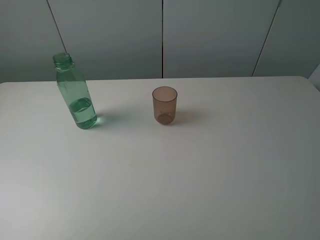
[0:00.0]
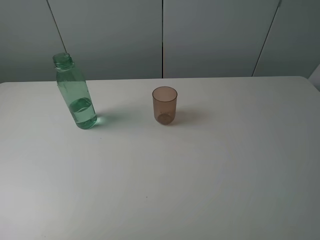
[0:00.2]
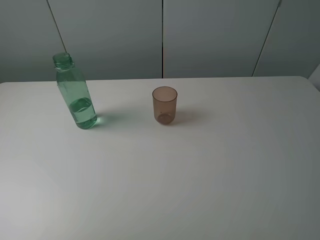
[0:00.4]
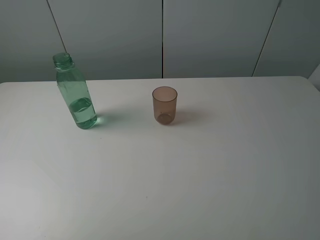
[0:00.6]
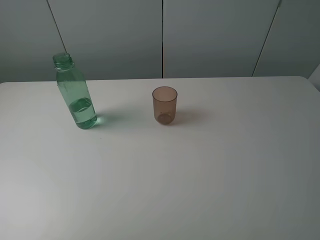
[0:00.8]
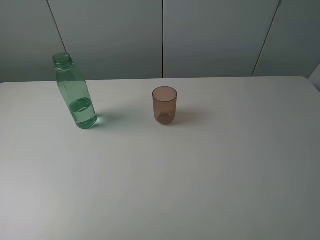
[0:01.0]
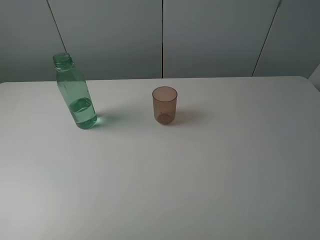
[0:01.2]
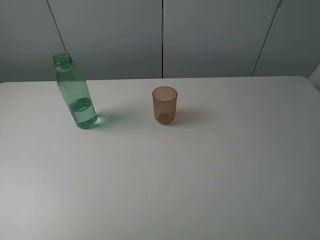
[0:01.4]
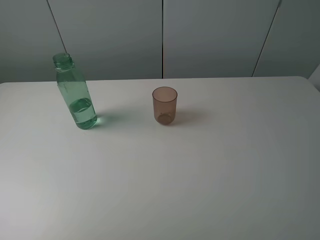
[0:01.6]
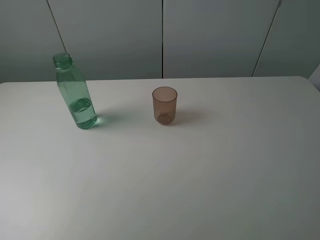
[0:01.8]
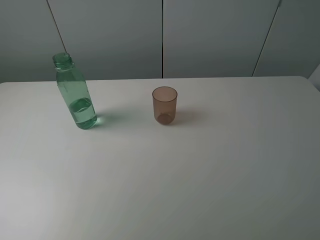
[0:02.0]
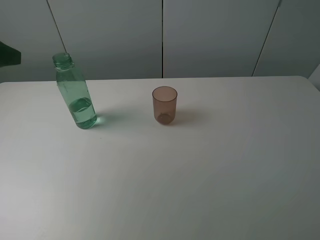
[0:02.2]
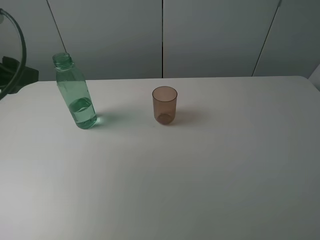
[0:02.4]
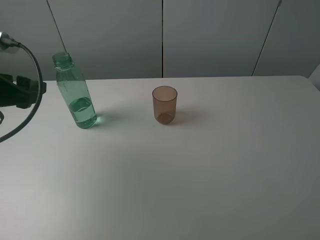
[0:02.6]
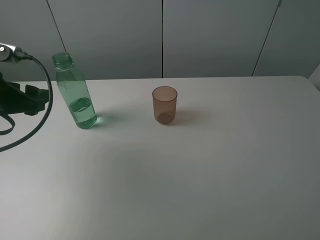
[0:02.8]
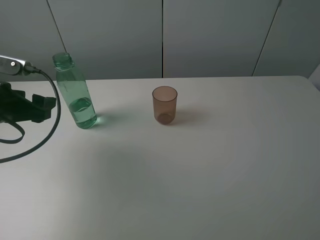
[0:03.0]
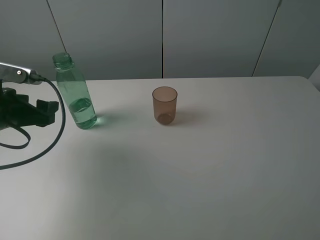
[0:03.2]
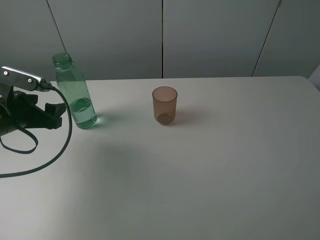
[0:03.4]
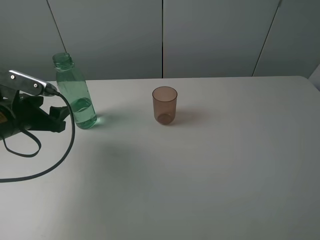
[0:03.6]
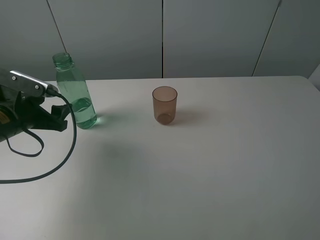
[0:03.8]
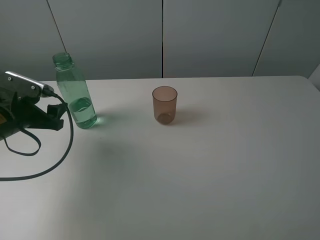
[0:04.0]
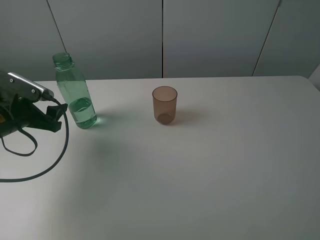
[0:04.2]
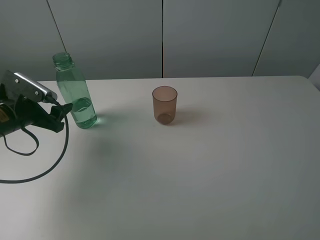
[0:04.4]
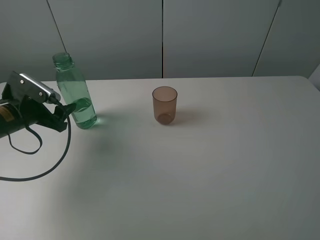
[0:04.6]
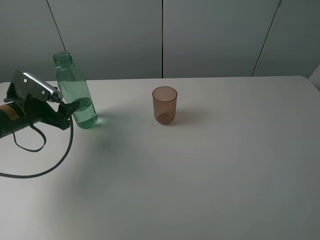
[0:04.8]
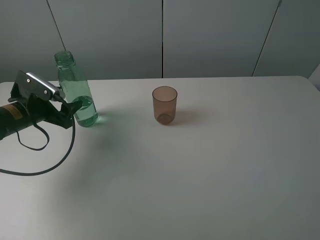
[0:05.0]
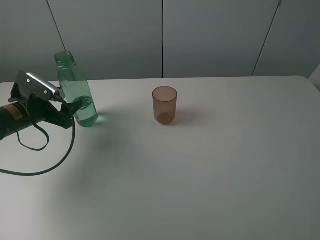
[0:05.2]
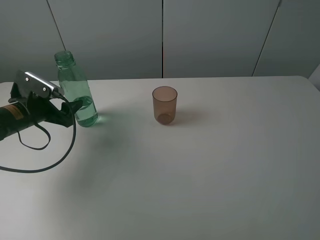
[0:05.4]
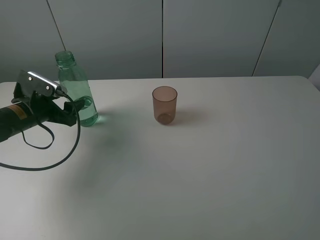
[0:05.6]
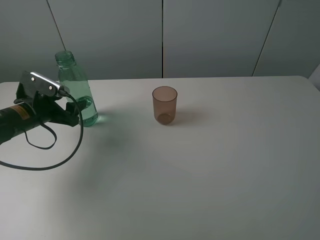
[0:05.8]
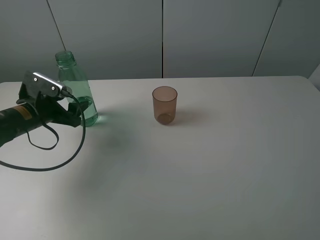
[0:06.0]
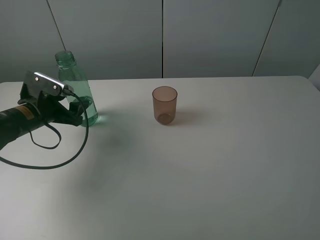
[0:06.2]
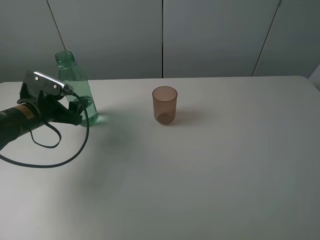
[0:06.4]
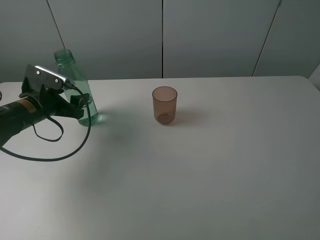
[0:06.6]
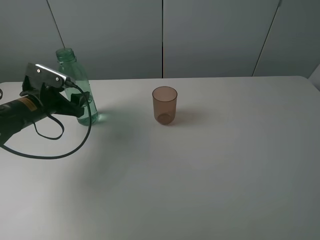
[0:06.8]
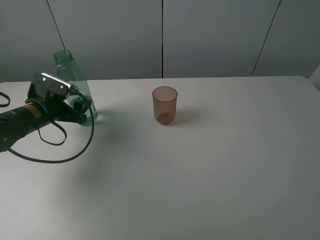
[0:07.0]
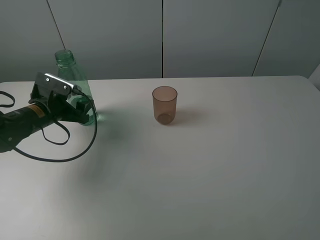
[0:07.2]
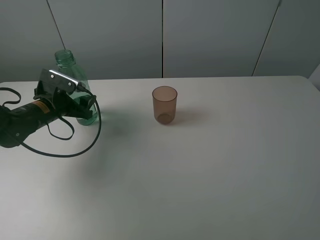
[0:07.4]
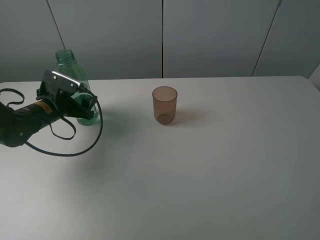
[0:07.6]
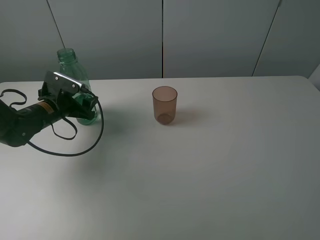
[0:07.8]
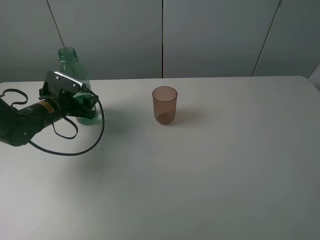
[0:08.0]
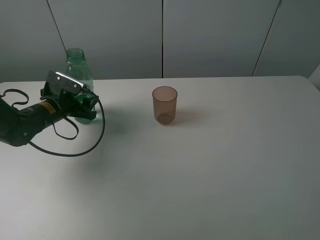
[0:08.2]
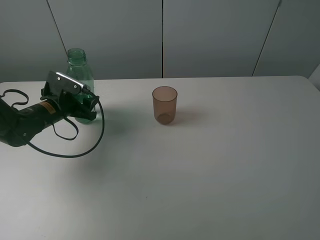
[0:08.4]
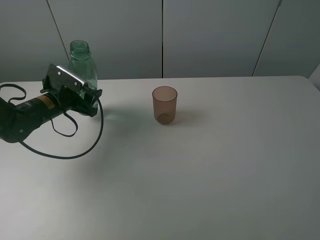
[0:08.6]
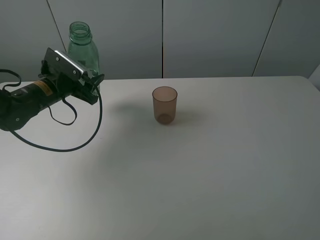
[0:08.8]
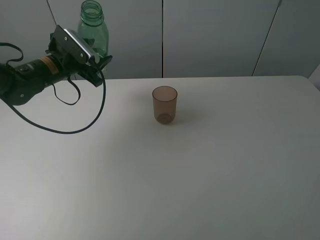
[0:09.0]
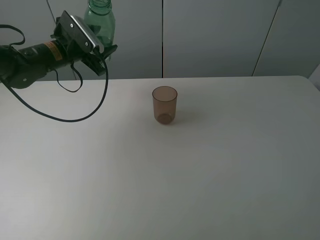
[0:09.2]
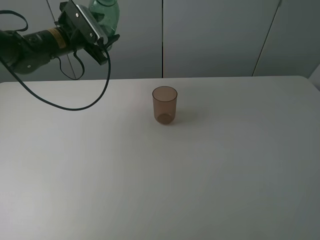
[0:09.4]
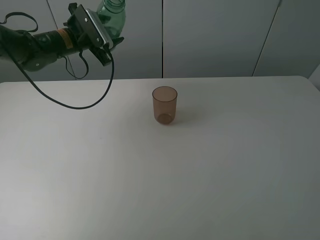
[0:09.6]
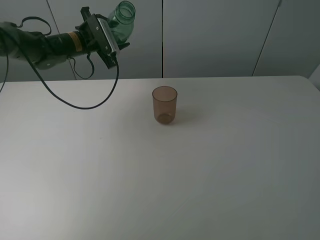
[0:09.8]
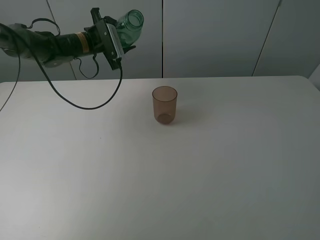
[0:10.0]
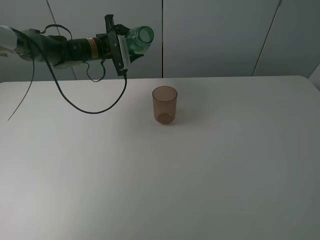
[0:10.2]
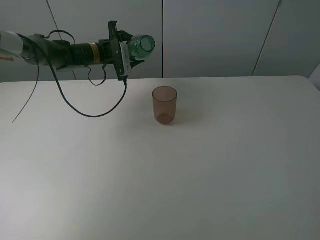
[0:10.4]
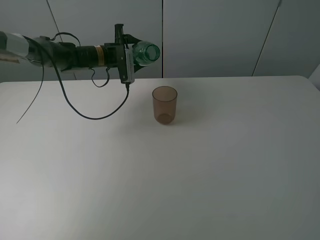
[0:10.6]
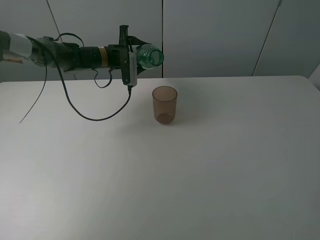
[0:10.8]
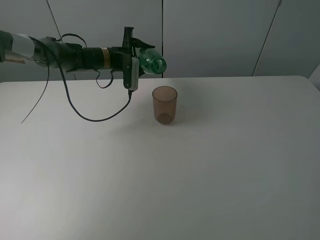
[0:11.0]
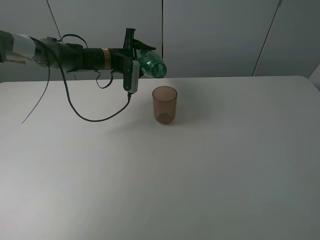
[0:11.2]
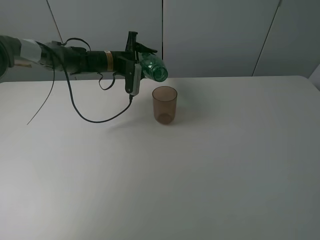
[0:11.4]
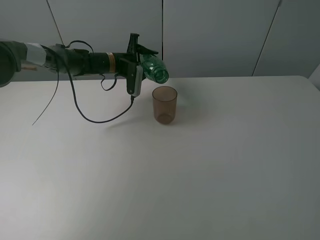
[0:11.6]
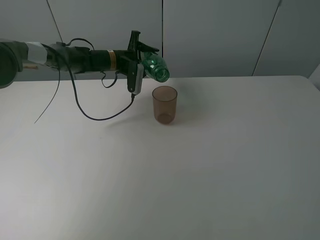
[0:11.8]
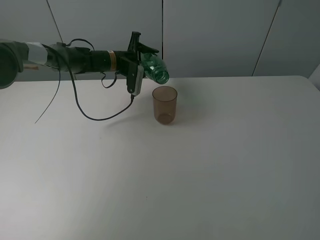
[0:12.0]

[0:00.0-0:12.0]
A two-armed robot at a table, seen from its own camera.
Task of the whole recording: pick up the bottle filled with water and pour it into the pink cup.
Step, 0:00.0 to 0:08.4: Grasp the green bottle with the left gripper.
0:01.6 to 0:03.0: The left gripper heads forward and downward, covering some 25 cm.
0:03.0 to 0:04.4: The left gripper travels downward by some 5 cm.
0:04.4 to 0:06.0: The grippers stay close to where they were, moving slightly.
0:06.0 to 0:07.6: The grippers make only small movements.
0:07.6 to 0:09.0: The left gripper travels upward and forward by some 10 cm, and closes up.
0:09.0 to 0:10.4: The left gripper goes approximately 15 cm forward and to the right.

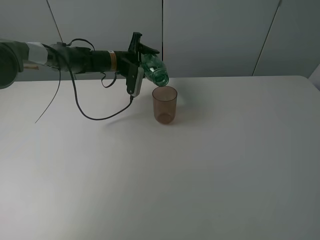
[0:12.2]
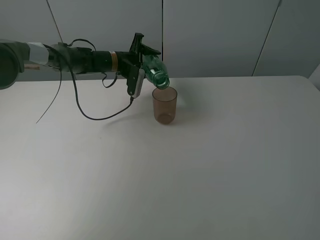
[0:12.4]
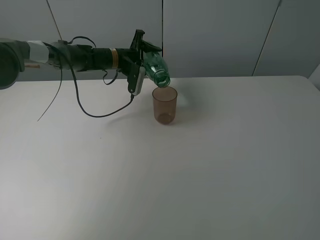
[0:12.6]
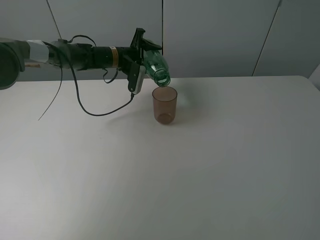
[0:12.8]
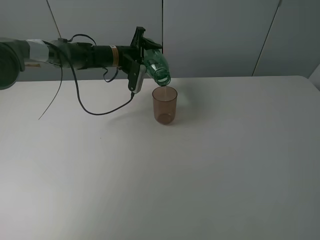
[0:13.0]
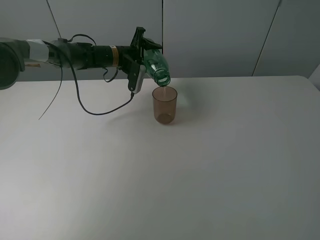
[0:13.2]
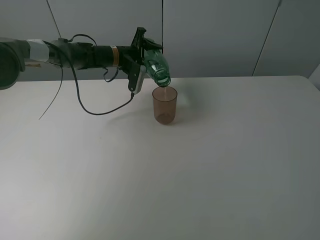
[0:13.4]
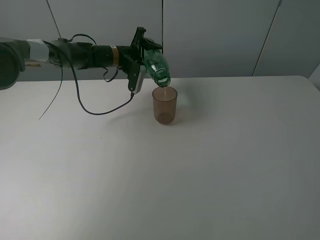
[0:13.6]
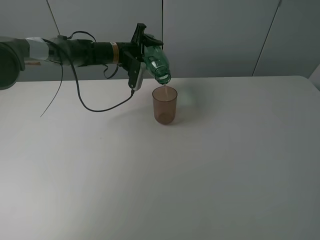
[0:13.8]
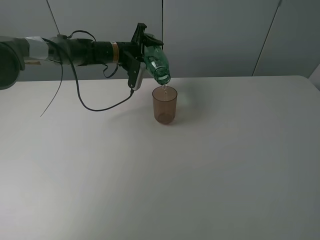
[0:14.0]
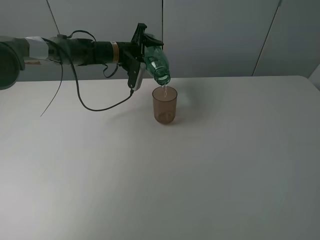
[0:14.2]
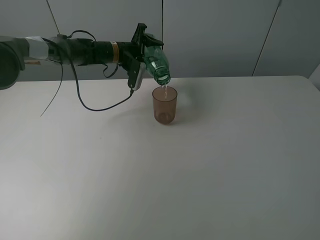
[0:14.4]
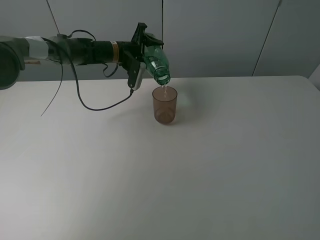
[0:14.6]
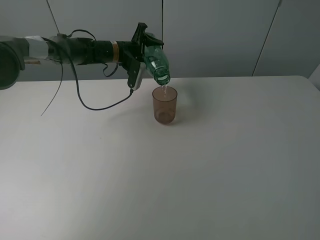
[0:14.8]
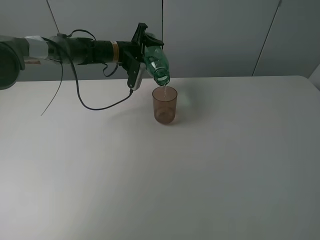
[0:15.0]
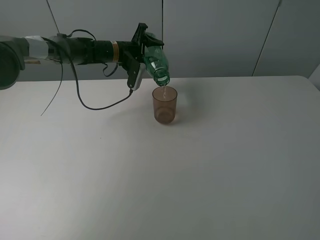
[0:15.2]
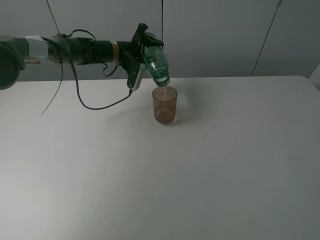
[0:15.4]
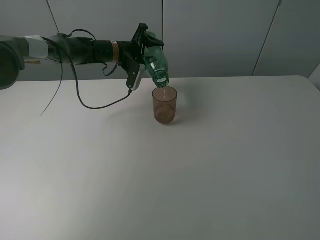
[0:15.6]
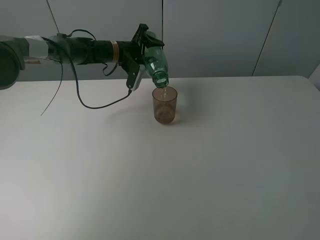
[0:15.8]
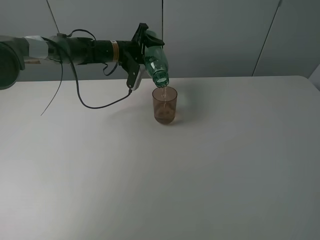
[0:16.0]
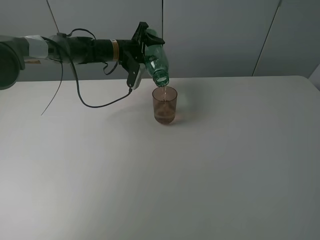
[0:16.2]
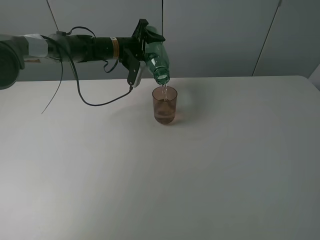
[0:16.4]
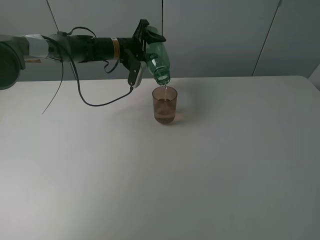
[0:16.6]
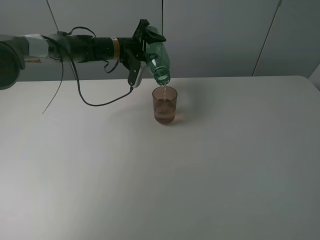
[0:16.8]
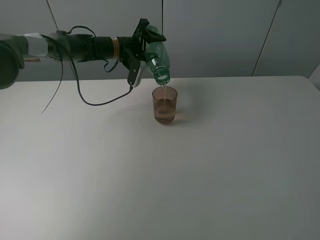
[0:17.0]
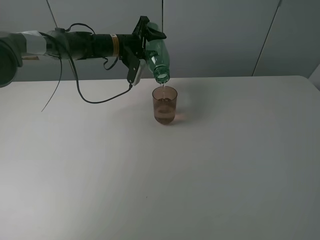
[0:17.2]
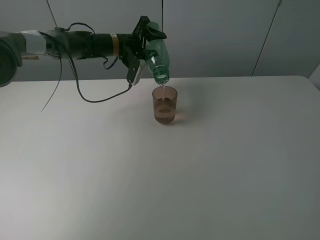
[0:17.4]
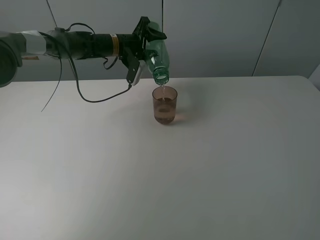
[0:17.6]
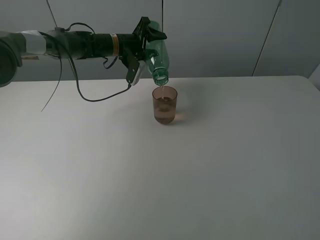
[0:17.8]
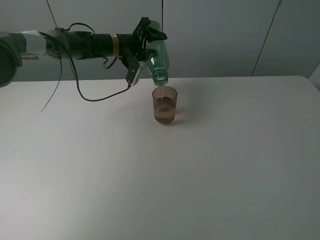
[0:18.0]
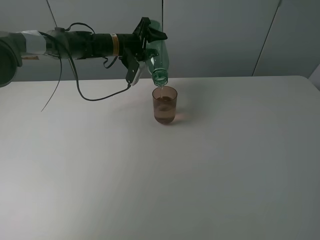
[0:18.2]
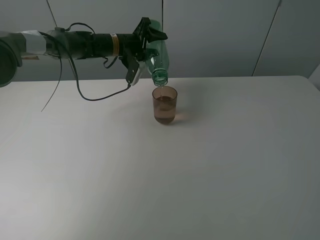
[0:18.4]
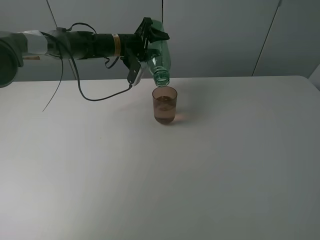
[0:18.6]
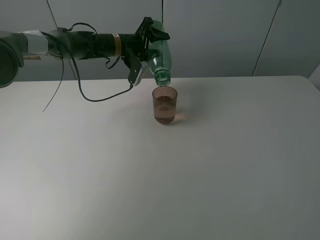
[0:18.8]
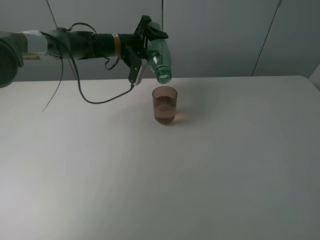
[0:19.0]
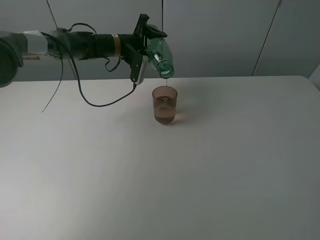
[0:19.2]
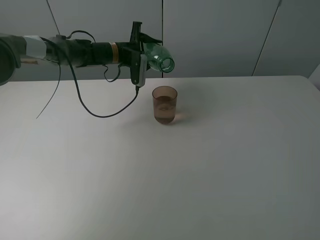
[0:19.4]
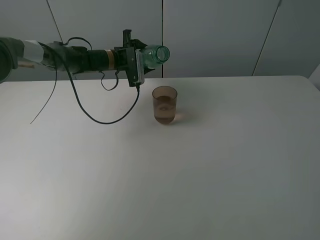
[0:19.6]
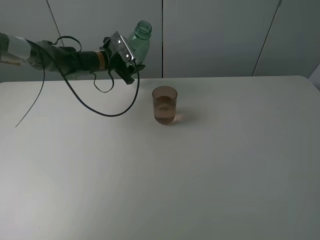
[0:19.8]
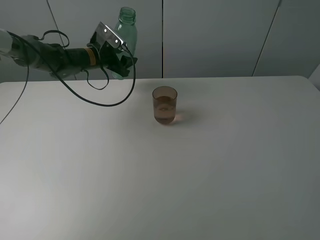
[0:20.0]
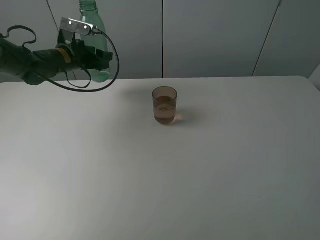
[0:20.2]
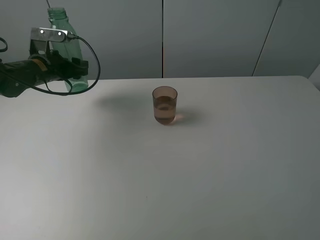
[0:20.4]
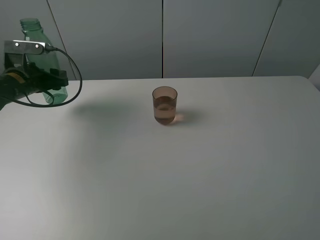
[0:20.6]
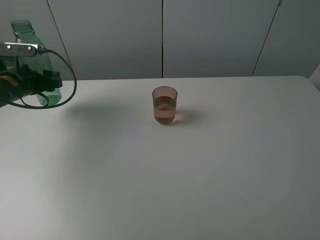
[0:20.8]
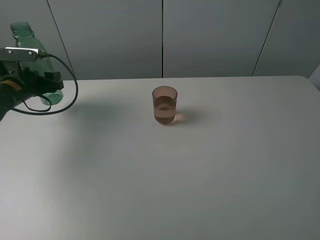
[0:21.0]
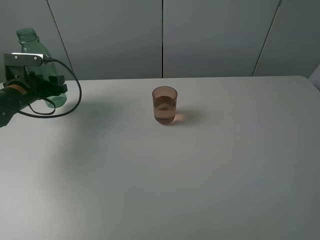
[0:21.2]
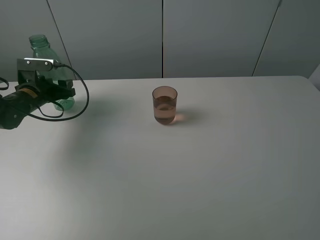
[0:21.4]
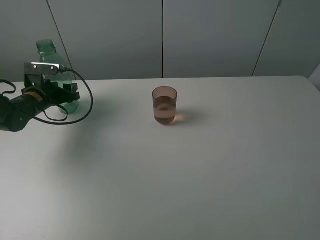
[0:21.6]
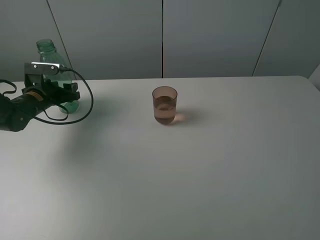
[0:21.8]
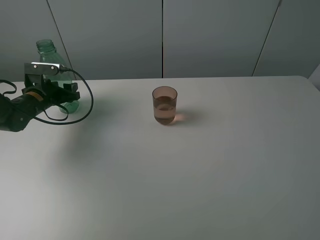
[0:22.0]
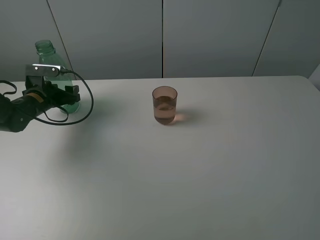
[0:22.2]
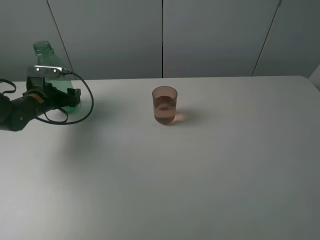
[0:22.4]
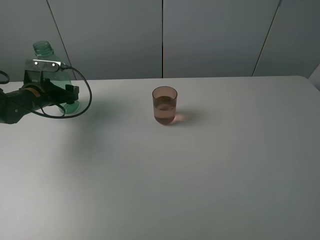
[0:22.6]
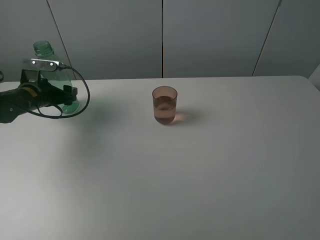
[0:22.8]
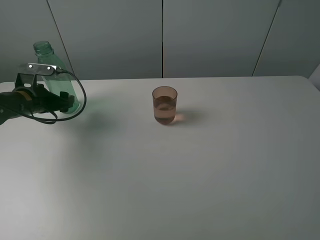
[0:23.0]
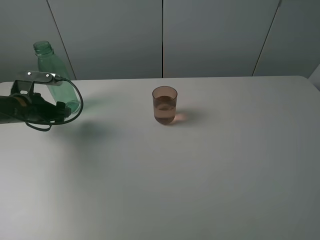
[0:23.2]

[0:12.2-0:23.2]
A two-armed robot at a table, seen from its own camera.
Task of the whole recording: pick up the bottle filled with water and pour it into the pink cup.
Step, 0:12.2 to 0:19.4: Pour water from green bottle to pink cup with the left gripper.
Step, 0:19.6 to 0:23.2: Place the green bottle with the left gripper.
0:12.2 to 0:13.8: The grippers stay close to where they were, moving slightly.
0:13.8 to 0:15.4: Neither gripper changes place.
0:15.4 to 0:18.4: The grippers move only a little.
0:18.4 to 0:20.0: The left gripper shifts roughly 10 cm to the left.
0:20.0 to 0:21.6: The left gripper heads to the left, backward and downward, covering roughly 20 cm.
0:21.6 to 0:23.2: The left gripper travels backward by about 5 cm, and opens up.
